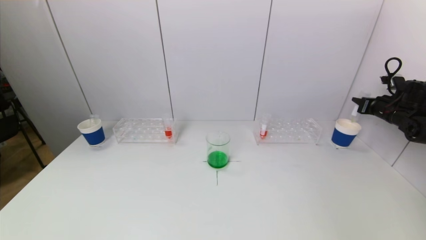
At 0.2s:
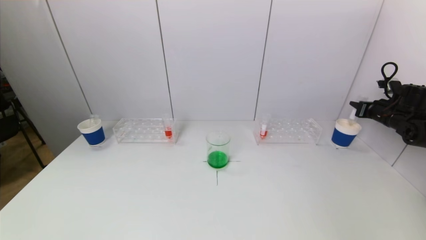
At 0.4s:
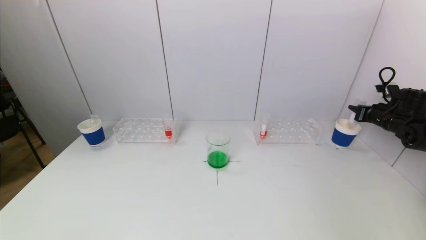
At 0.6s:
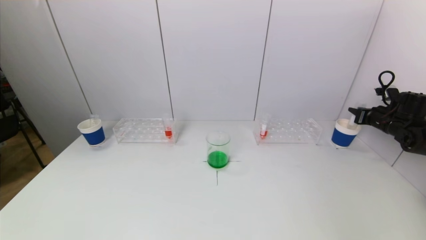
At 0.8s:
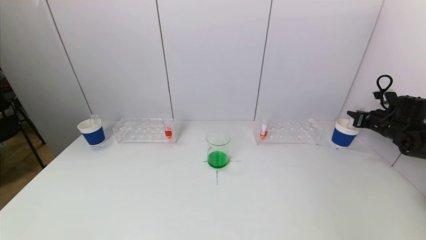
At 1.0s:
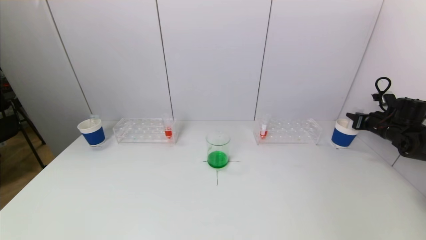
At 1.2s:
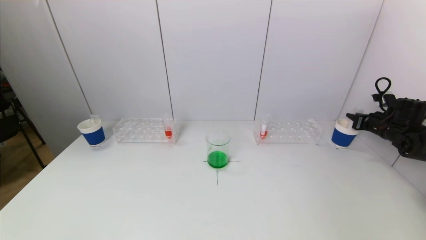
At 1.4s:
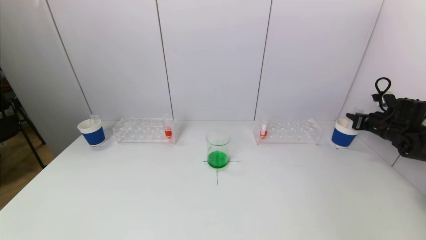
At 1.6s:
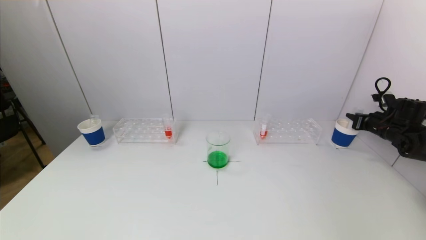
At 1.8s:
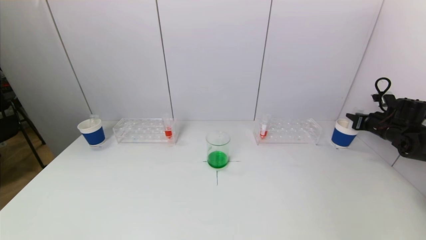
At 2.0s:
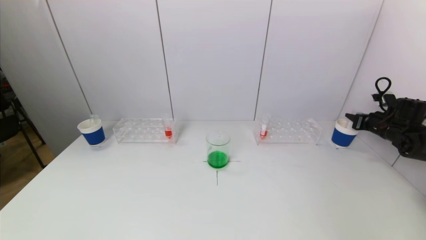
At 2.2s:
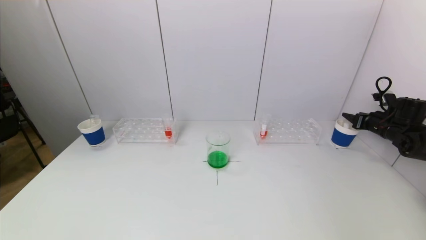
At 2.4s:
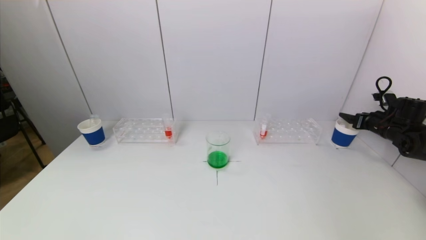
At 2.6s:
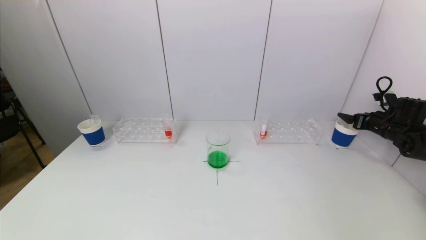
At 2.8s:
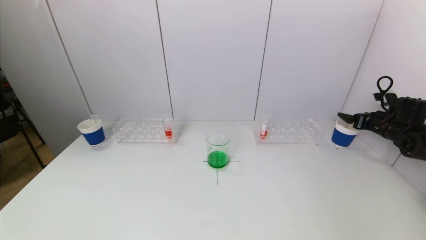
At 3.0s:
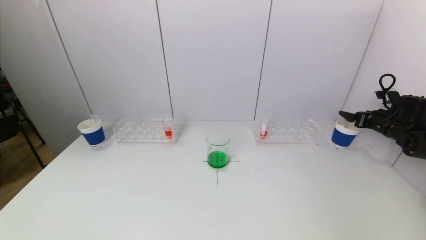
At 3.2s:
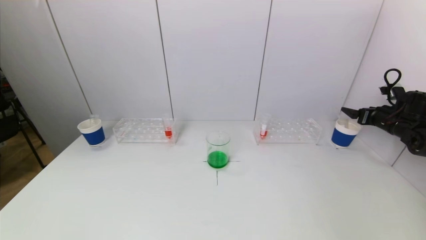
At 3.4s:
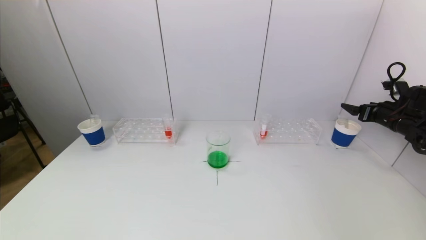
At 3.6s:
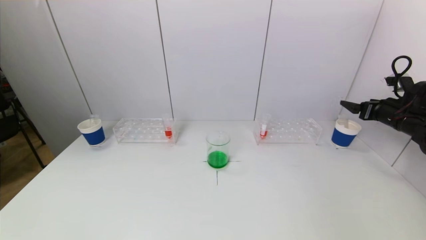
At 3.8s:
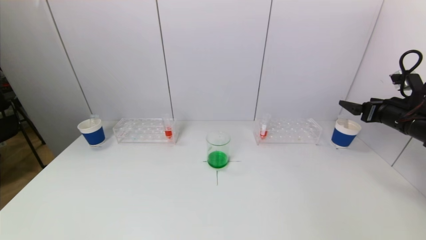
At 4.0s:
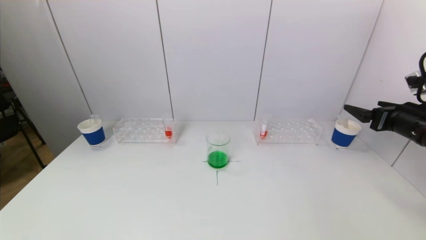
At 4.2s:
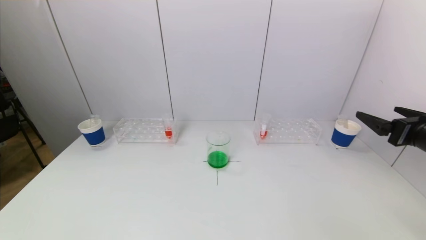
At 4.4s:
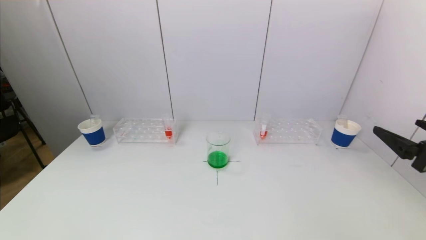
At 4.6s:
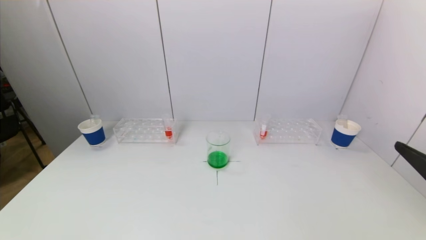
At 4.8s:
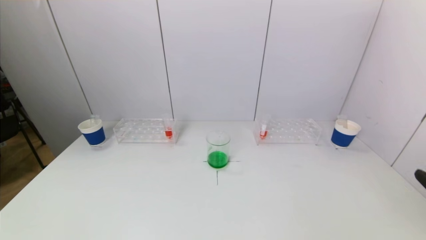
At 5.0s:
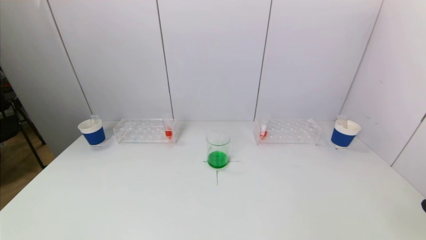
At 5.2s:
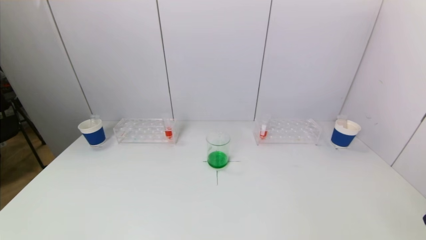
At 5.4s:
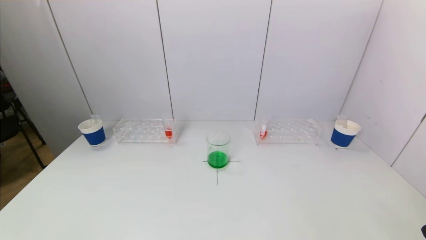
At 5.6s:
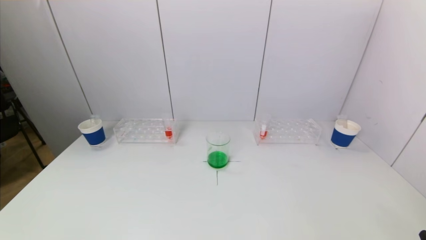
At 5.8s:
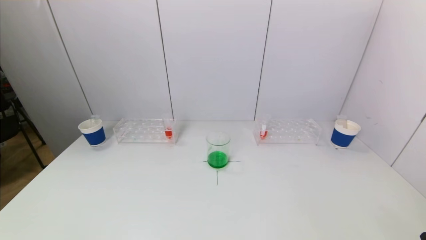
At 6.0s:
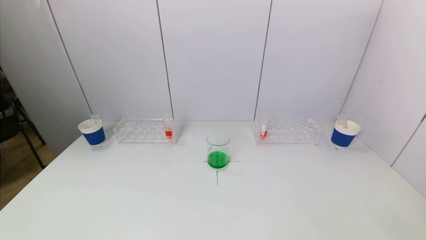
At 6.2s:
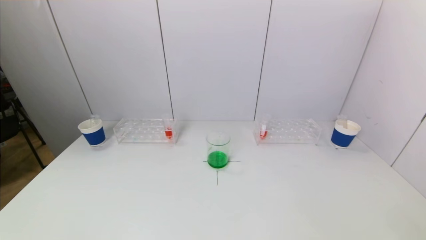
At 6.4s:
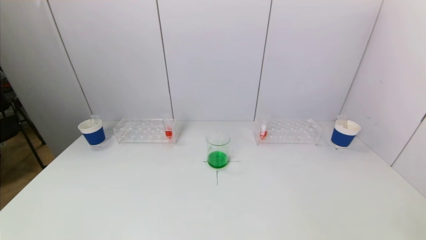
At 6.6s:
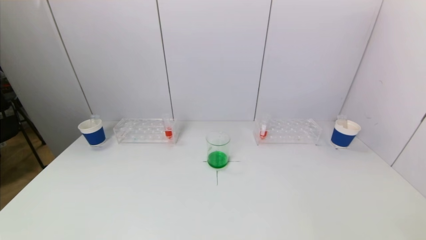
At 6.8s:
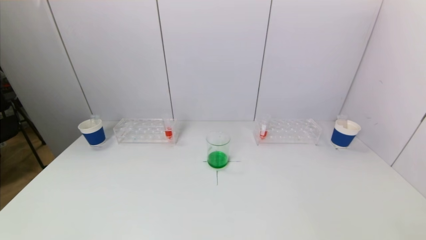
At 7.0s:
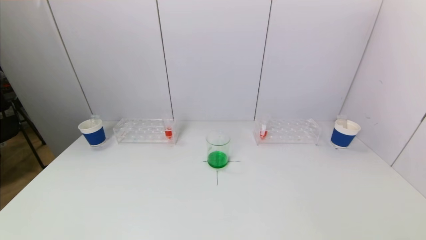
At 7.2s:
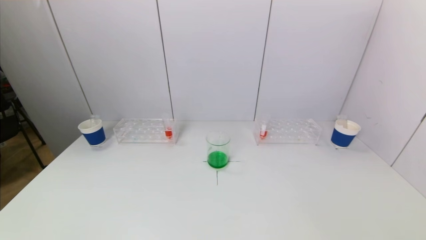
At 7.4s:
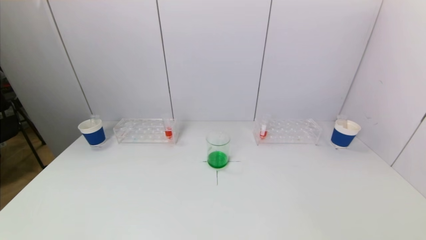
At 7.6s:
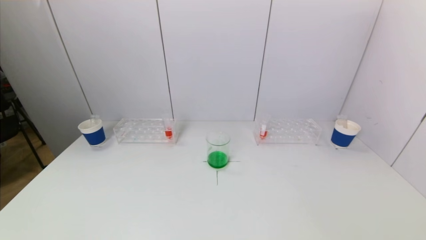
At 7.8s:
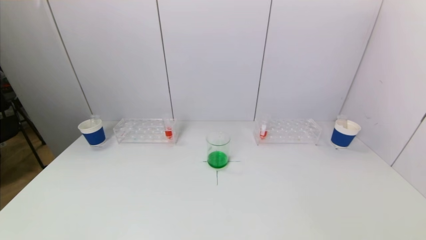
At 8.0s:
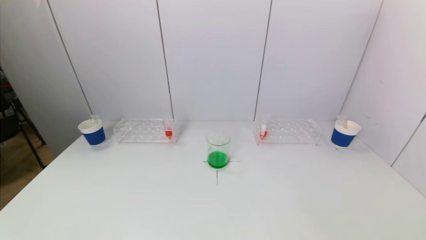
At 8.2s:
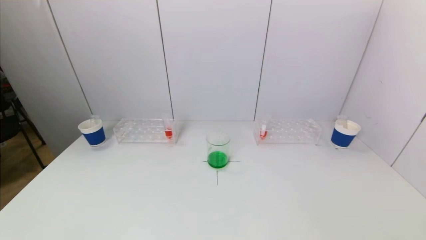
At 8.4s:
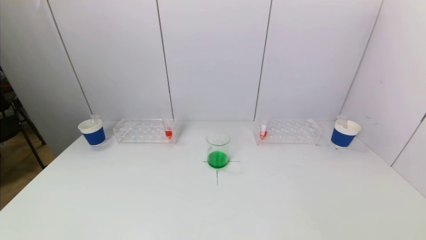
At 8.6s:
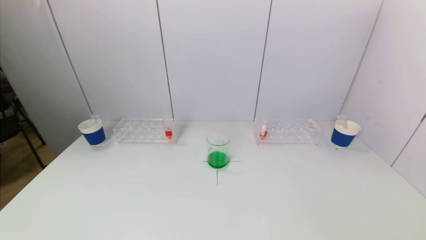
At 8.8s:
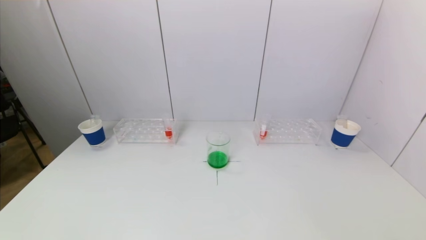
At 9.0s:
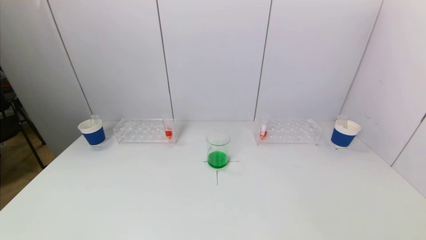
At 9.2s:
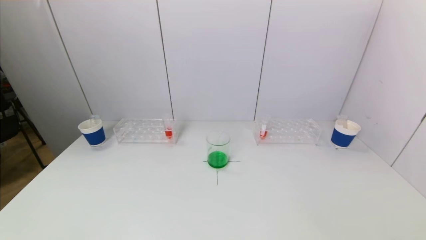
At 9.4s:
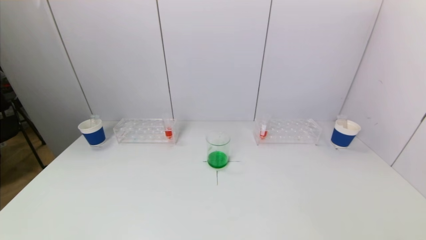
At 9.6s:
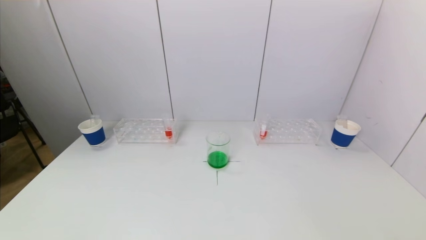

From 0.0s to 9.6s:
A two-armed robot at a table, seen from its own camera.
Task of the whole recording: pick up a test tube with pigment on left test tube rack and a test tube with pigment on right test tube rack by grippers and pour them into the beaker.
Step, from 0.0s to 2.6s: Place the test tube into the paper cup with the right gripper.
From 0.0s to 1.6s: The grippers move only a little.
From 1.6s to 3.2s: The right gripper opens its fingers.
From 3.2s to 4.8s: The right gripper moves backward and to the left, some 35 cm.
From 8.0s to 9.6s: The two grippers keep their place.
